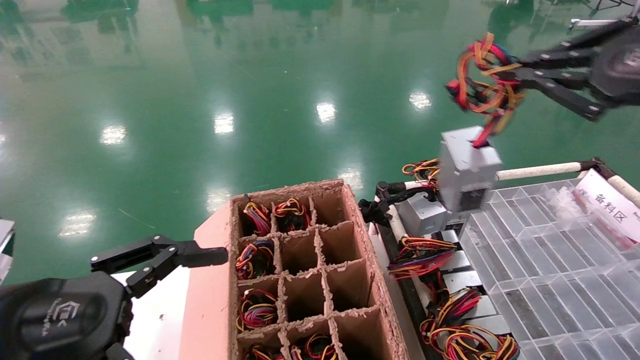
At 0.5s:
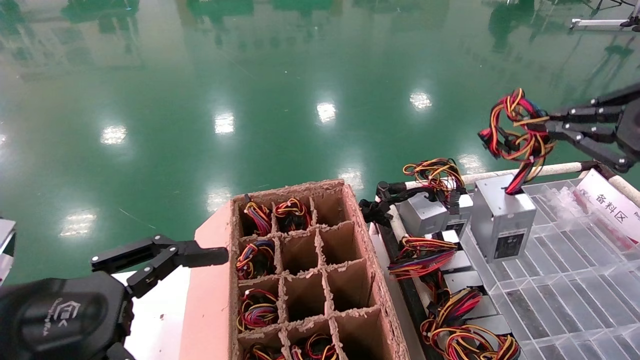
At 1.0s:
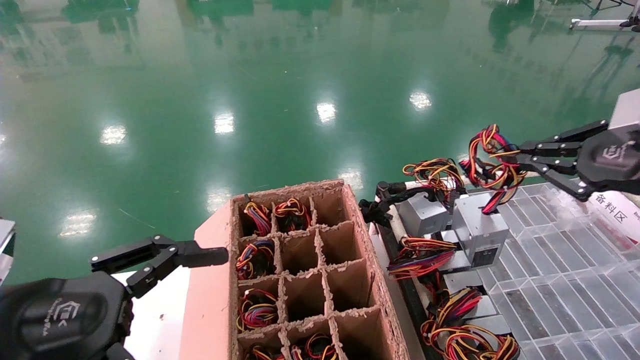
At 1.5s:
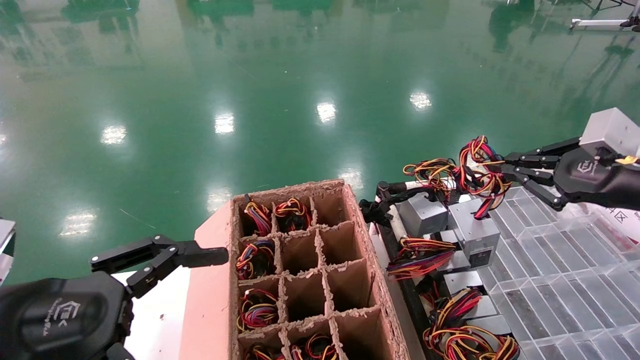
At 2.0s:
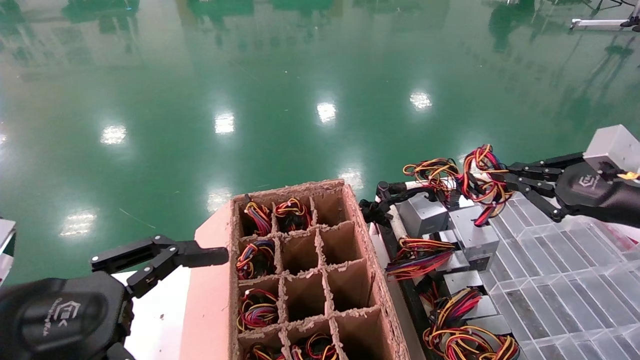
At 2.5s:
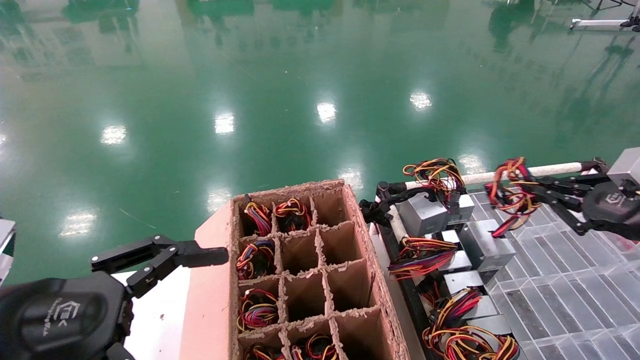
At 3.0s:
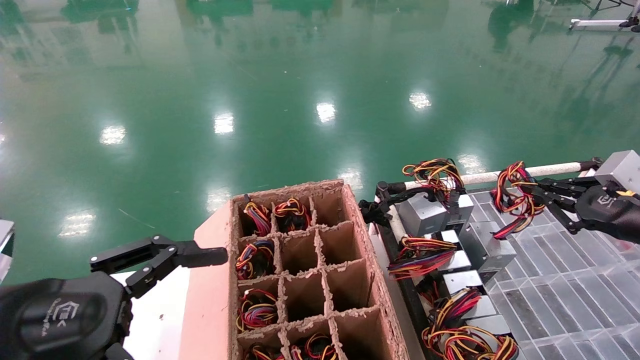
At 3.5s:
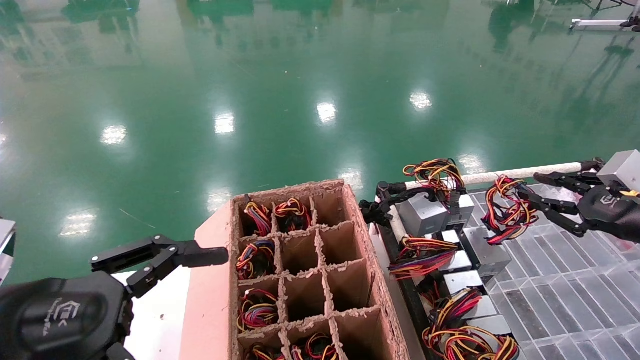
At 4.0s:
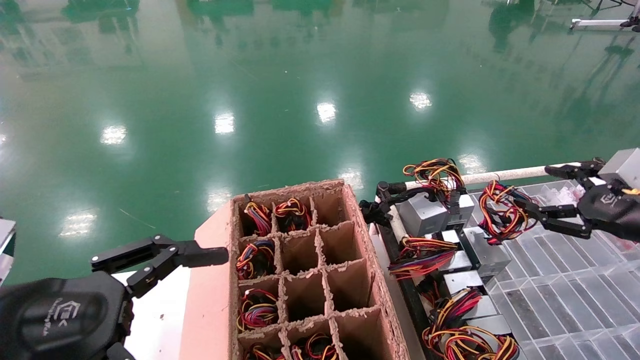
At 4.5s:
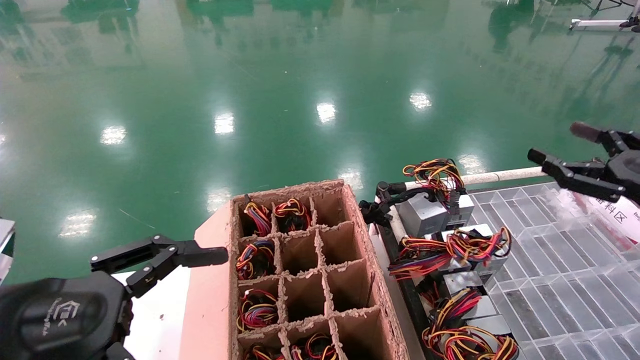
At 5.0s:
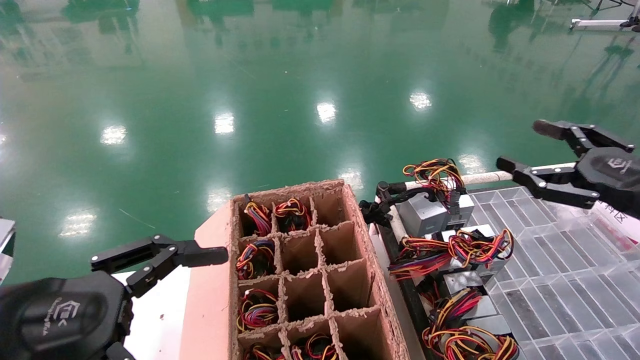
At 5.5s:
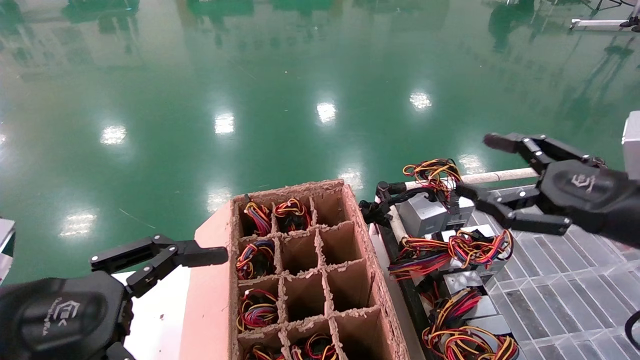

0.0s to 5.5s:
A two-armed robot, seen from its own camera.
Step, 0.0s to 3.5s: Place the power supply on the operating table.
0.0s to 2.0s: The right gripper moves downward and forward, approximately 15 cm.
2.0s to 3.5s: The right gripper moves about 5 cm.
3.5s to 5.5s: The right gripper shifts some 15 cm to the left and backward, and opens up.
